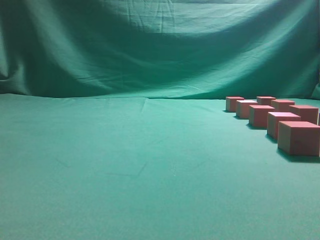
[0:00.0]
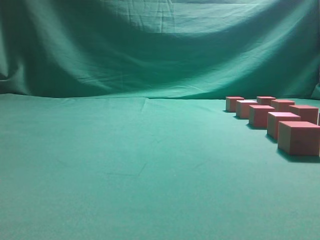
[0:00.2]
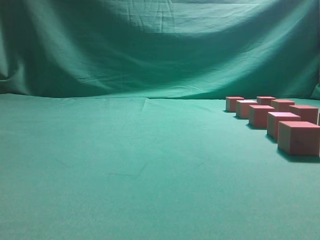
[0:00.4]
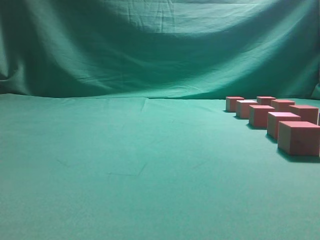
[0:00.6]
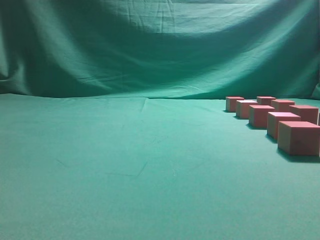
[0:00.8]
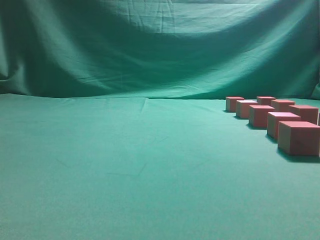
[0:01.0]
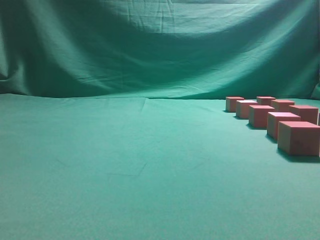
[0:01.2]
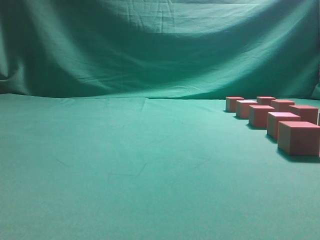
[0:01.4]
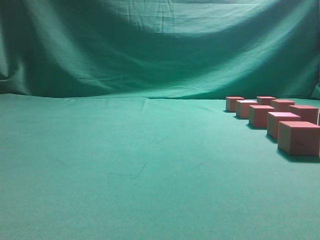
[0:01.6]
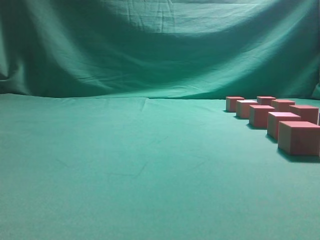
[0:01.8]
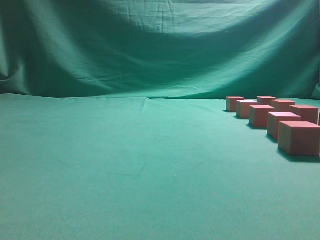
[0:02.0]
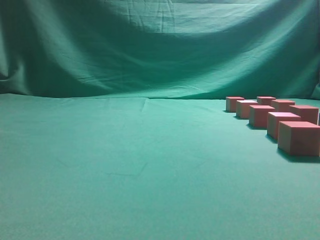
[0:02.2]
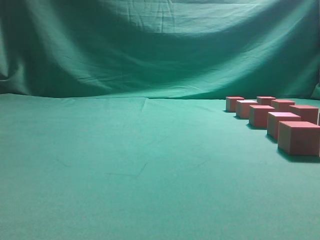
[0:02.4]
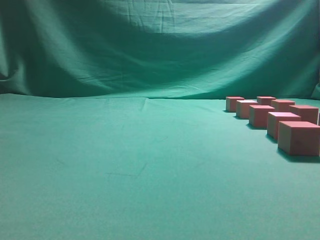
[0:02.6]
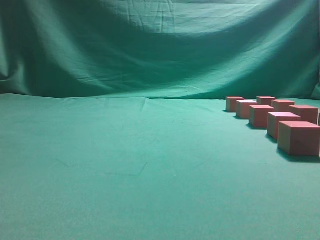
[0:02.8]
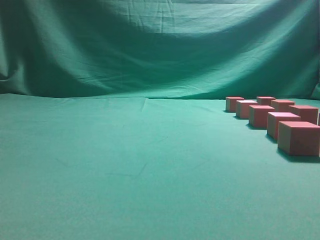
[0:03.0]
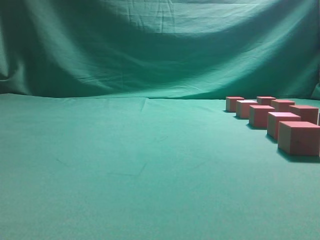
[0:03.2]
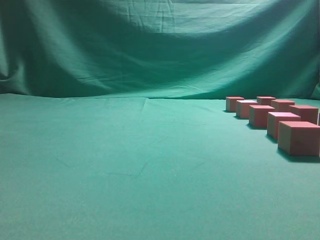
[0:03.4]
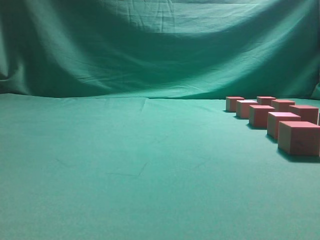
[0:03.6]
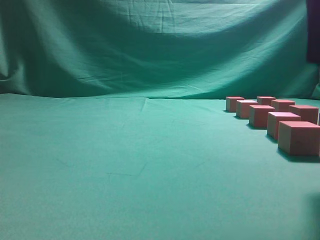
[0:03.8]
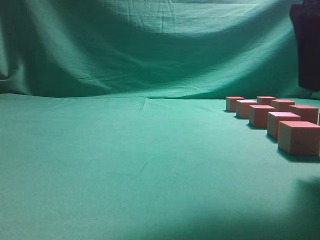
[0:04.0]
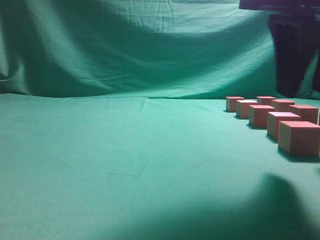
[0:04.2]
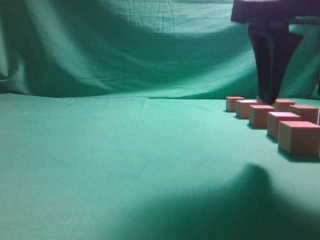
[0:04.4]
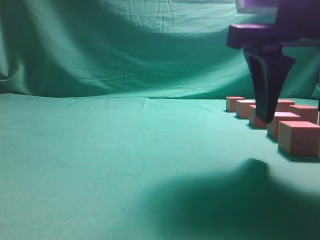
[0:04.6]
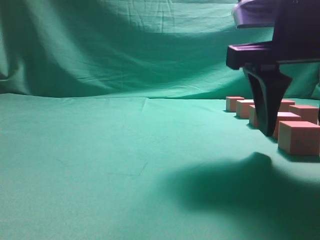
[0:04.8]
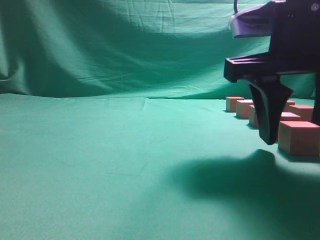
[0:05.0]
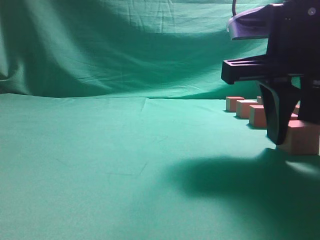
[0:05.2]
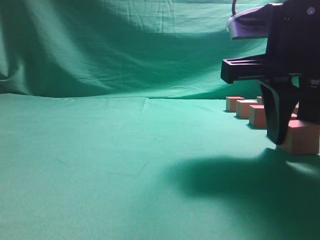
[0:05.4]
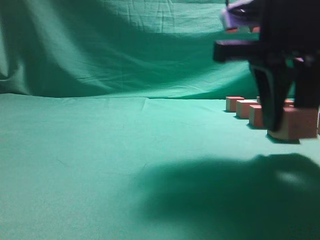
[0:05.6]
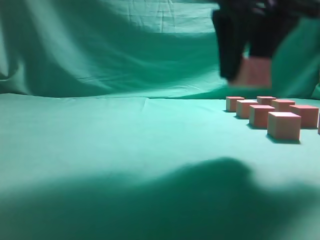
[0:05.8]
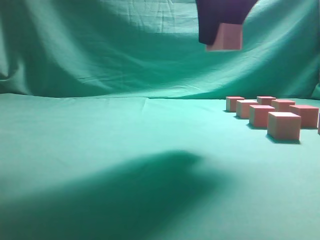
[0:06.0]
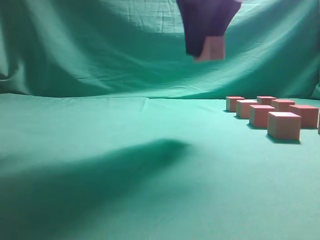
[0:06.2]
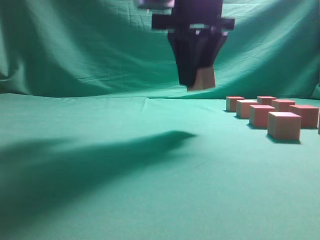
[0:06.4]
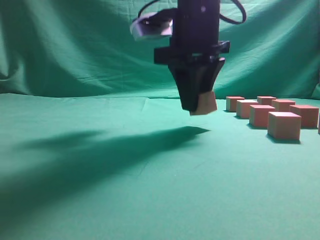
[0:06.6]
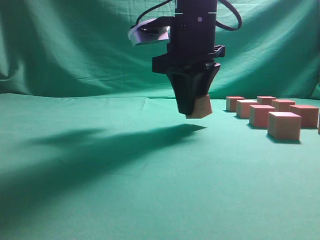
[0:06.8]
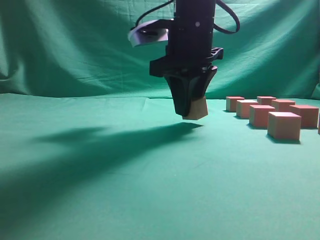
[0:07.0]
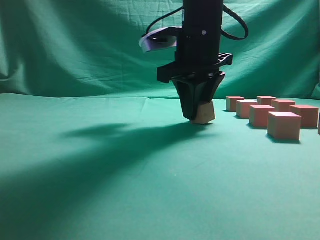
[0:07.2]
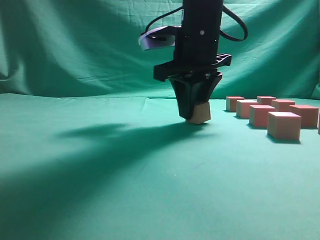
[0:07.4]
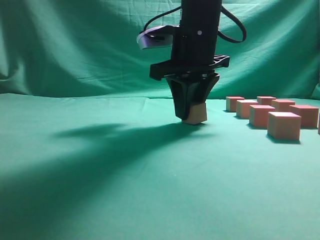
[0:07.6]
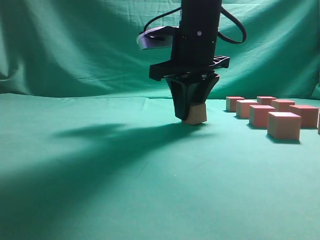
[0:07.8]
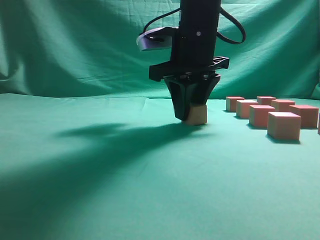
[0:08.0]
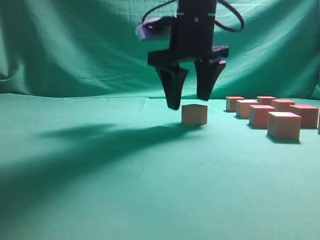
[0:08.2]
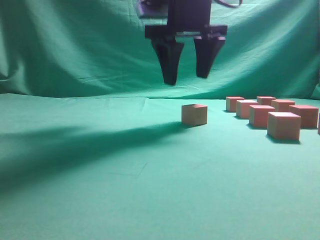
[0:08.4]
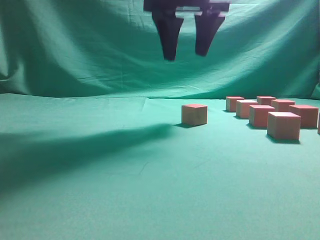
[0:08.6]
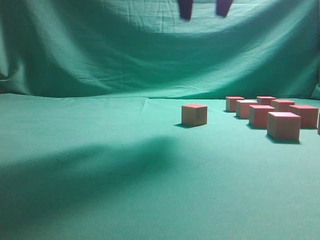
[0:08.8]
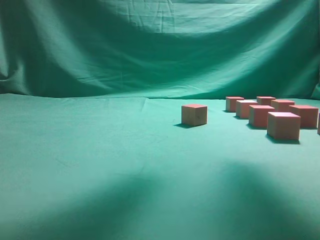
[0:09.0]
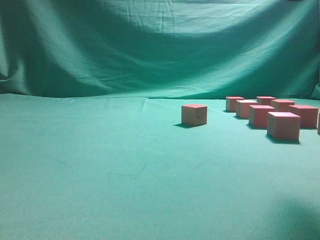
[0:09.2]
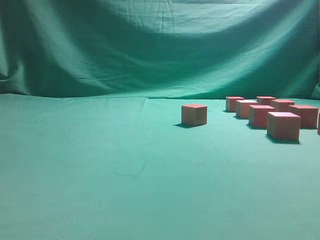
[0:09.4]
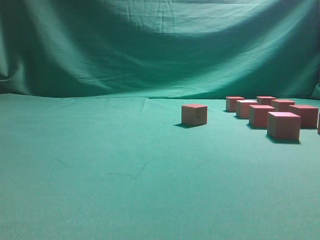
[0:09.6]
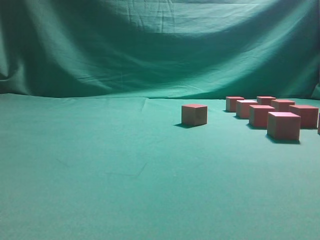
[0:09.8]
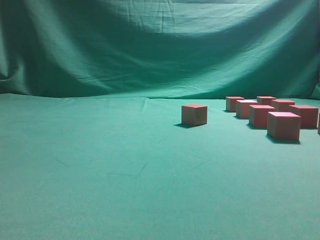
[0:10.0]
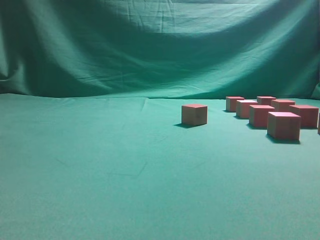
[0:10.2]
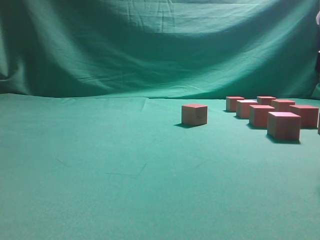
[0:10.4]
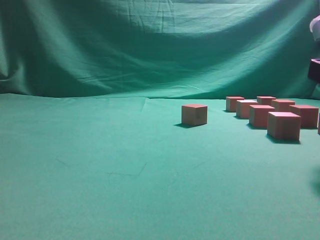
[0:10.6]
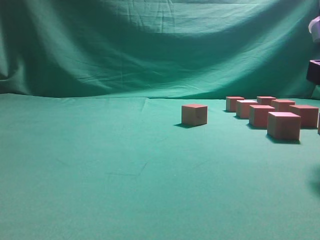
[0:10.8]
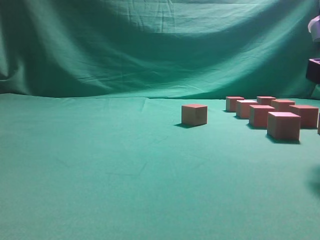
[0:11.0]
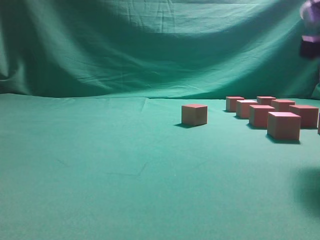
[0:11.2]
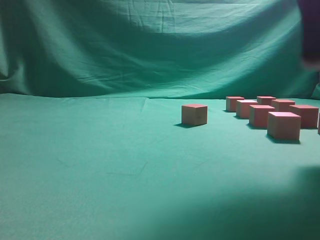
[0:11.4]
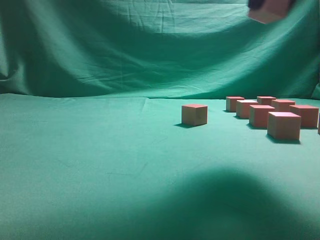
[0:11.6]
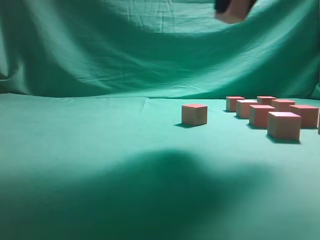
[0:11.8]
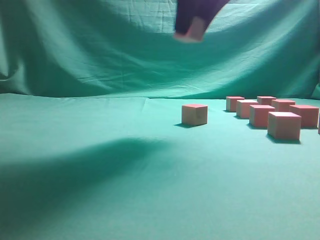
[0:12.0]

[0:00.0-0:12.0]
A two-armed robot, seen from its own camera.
Task of the whole recording: pick up the multiple cubes in two columns one by one and place them in another position on the table.
Step, 0:00.0 to 0:05.8: Pick up the block on the table.
Step, 0:06.0 to 0:08.6: Place the block at the correct position to assemble the letter S.
Step, 0:08.8 to 0:11.4: Pick up the block on the table.
0:03.0 to 0:04.4: The right gripper heads forward, to the left and downward, covering about 15 cm, and opens up.
0:04.4 to 0:06.0: The right gripper heads forward, upward and to the left, covering roughly 10 cm, and closes its fingers.
0:06.0 to 0:07.6: The right gripper is displaced downward and forward by some 15 cm.
0:07.6 to 0:09.0: The right gripper travels upward and backward by roughly 20 cm, and opens.
0:09.0 to 0:10.4: The right gripper shifts roughly 20 cm downward, to the right and backward.
0:10.4 to 0:12.0: The right gripper heads upward, forward and to the left, covering about 25 cm, and closes up.

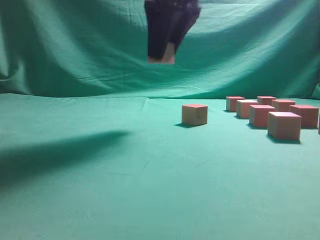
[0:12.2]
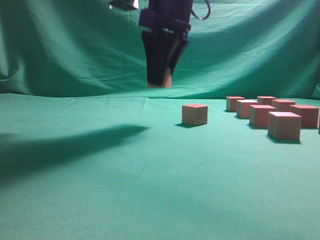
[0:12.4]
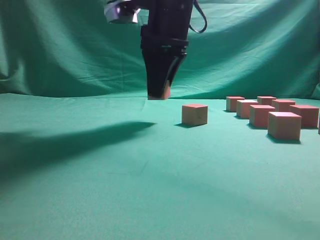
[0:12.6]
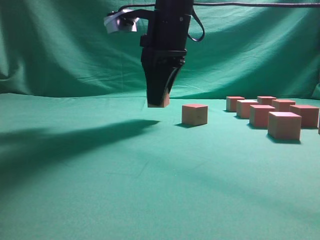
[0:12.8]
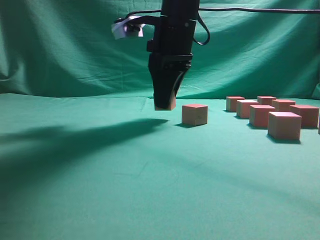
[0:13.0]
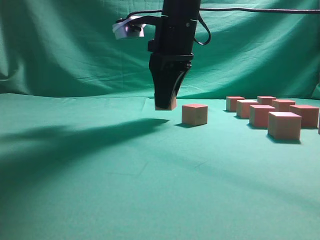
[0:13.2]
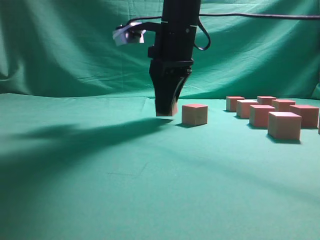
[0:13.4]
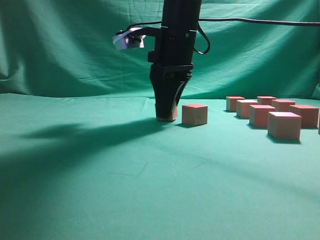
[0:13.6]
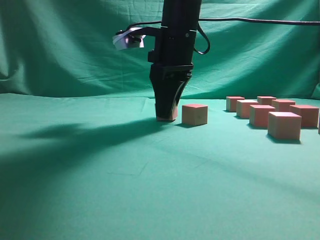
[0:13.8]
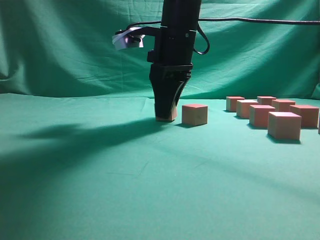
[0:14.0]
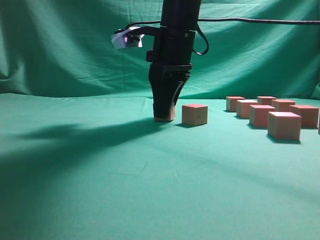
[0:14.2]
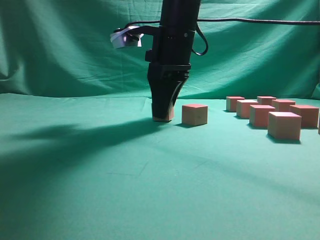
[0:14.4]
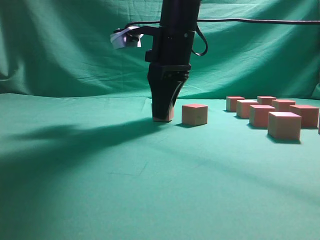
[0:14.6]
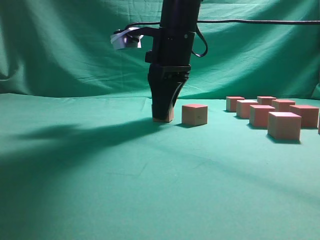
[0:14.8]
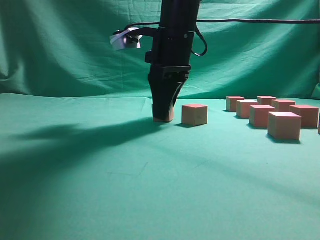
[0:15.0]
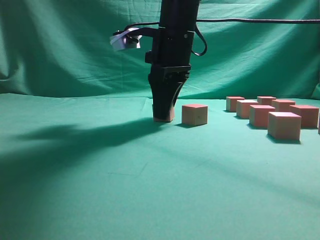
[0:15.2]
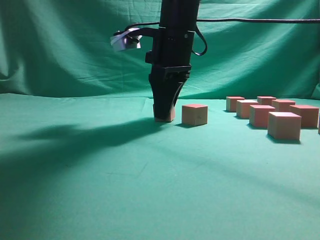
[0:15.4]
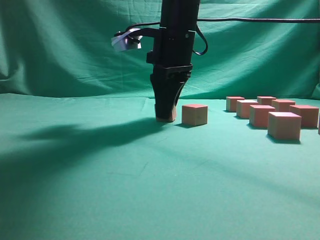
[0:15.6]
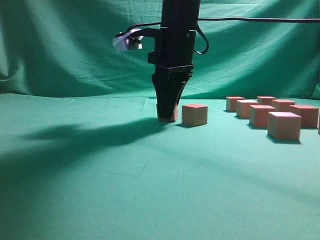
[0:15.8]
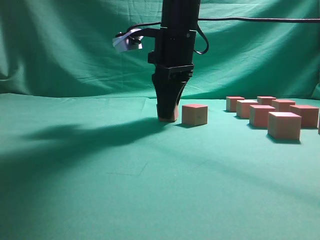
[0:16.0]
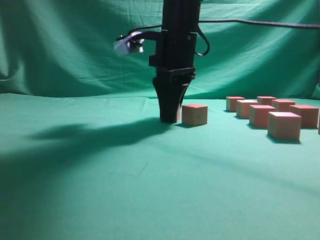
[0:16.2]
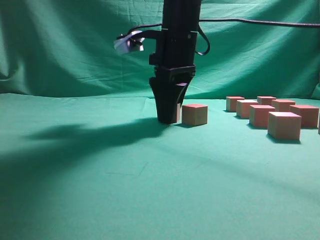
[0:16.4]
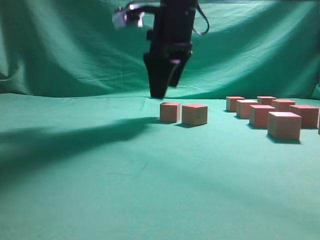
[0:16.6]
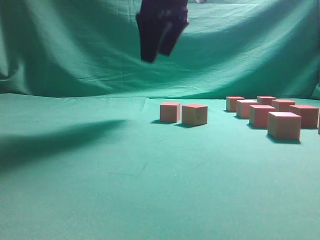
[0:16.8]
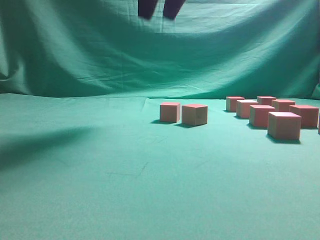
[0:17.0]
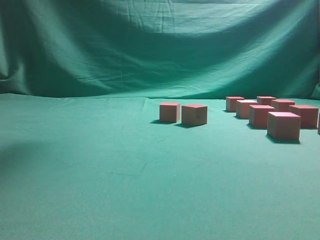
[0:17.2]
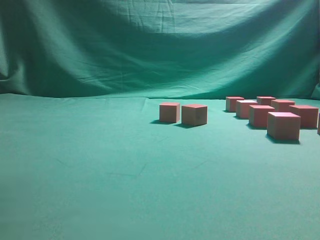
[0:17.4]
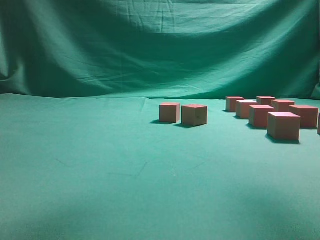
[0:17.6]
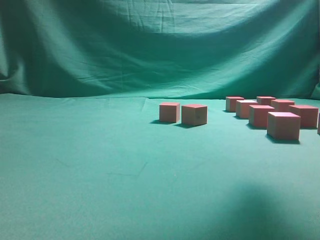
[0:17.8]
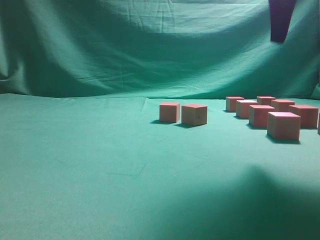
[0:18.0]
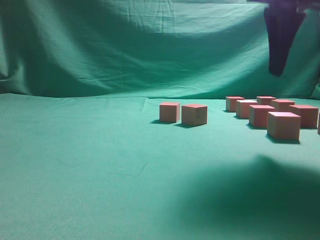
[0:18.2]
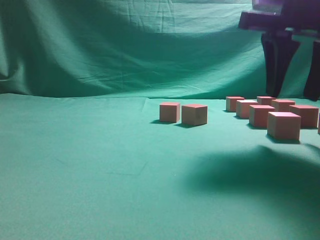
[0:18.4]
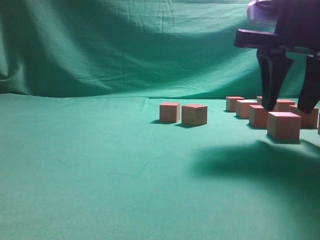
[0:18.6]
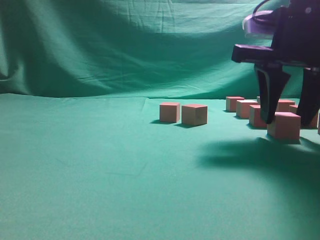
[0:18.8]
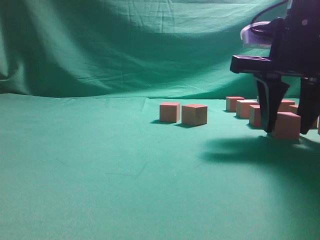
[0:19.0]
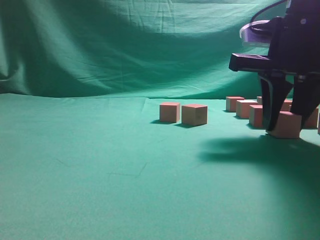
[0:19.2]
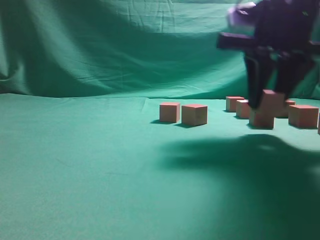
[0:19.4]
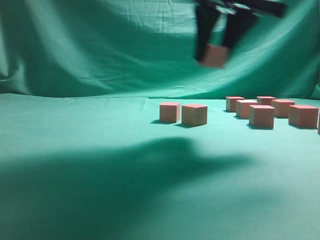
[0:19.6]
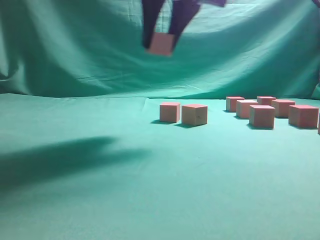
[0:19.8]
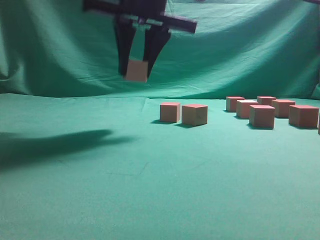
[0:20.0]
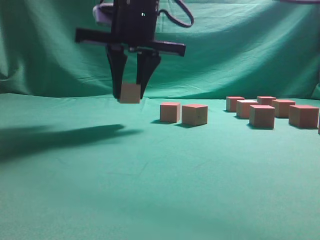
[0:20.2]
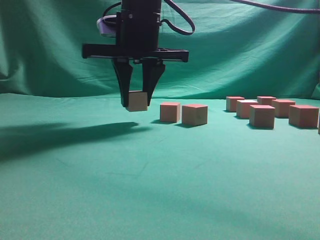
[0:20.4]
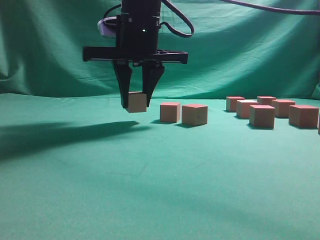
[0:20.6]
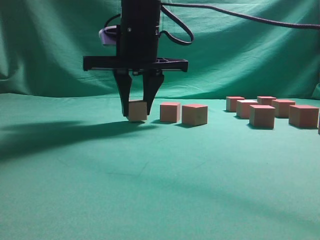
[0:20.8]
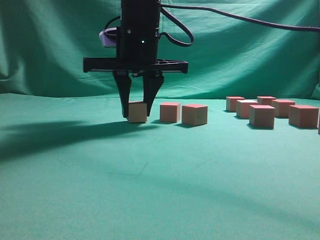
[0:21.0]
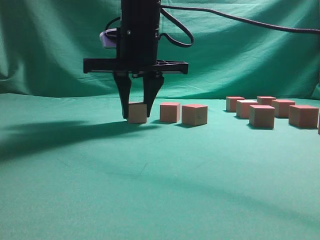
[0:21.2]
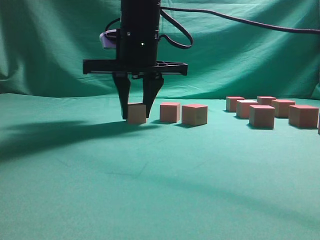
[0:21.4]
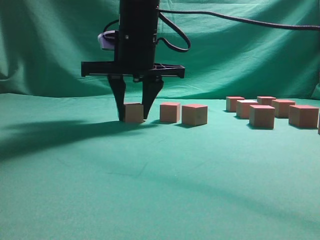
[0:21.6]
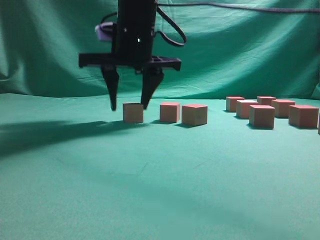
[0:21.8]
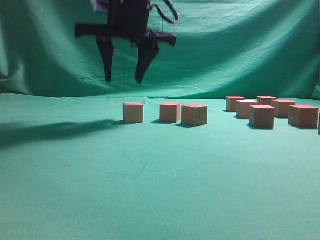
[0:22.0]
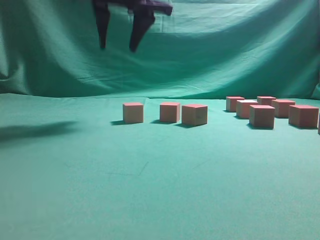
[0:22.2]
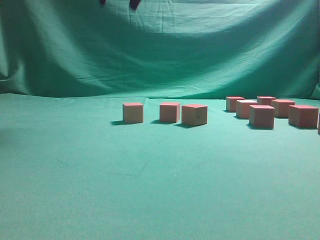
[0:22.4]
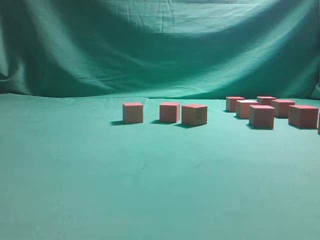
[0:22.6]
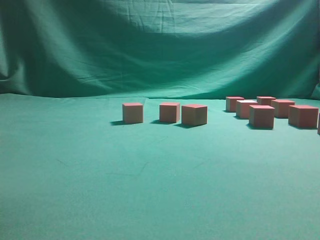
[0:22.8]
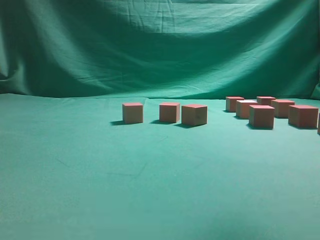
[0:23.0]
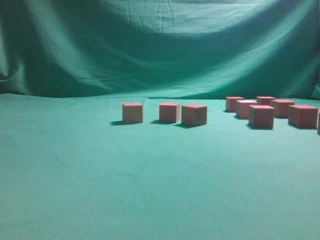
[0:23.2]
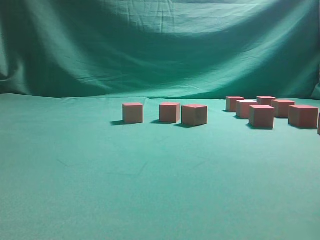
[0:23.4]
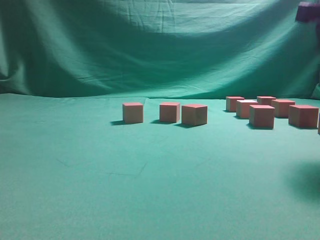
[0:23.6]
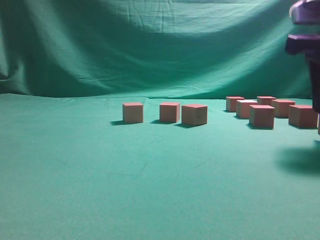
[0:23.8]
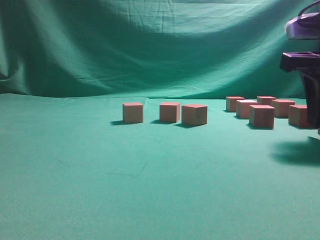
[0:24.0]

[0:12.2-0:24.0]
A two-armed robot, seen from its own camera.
Task of the whole recording: pick up the multiple cubes in two columns one by one and place them in another position on the table.
Step, 0:12.2 to 0:16.8: Place the block at the correct position to assemble the letter S.
Step, 0:17.0 to 0:19.6: Pick up the block on the table.
Step, 0:19.8 to 0:22.2: Place the block at the correct position to assemble the letter S.
0:12.2 to 0:13.6: The right gripper is displaced downward by about 10 cm.
0:13.6 to 0:15.2: Both grippers stay about where they are.
0:15.2 to 0:16.6: The right gripper opens up.
0:16.6 to 0:18.2: The right gripper moves to the right and backward, approximately 20 cm, and moves some 20 cm upward and comes back.
0:18.2 to 0:19.6: The right gripper heads to the left, covering approximately 10 cm, moves some 5 cm downward and comes back, and closes its fingers.
0:19.6 to 0:21.0: The right gripper goes about 15 cm to the left, downward and forward.
0:21.0 to 0:22.6: The right gripper moves upward, approximately 20 cm.
0:22.6 to 0:24.0: The right gripper travels downward and to the right by approximately 30 cm.
